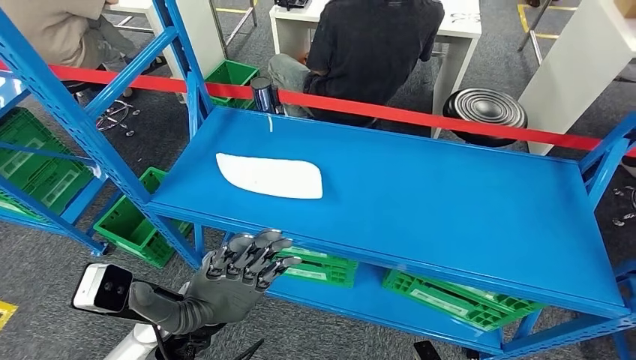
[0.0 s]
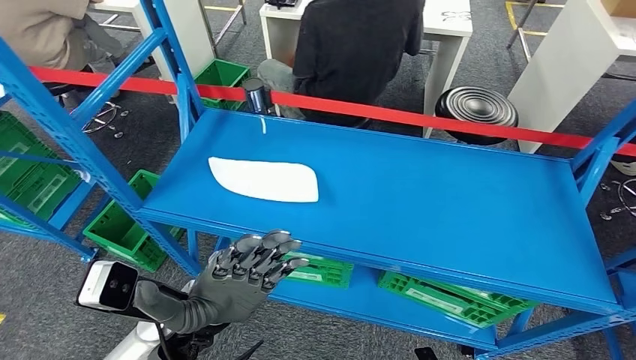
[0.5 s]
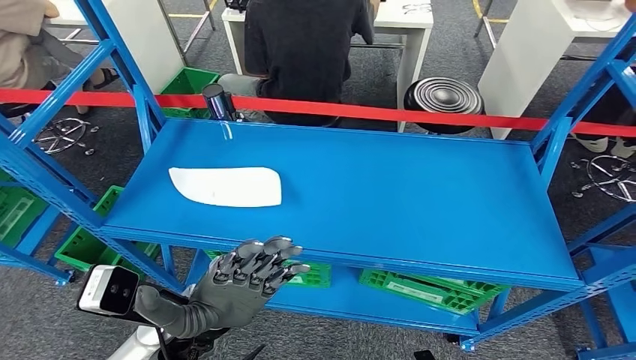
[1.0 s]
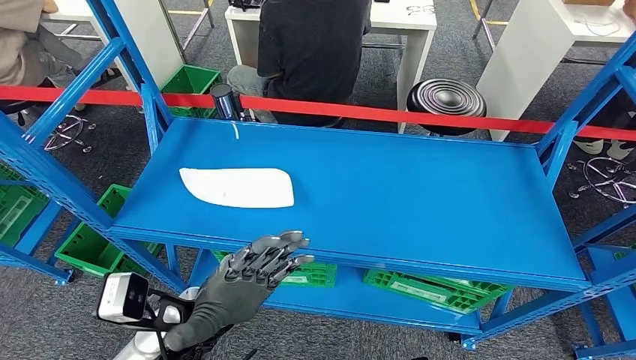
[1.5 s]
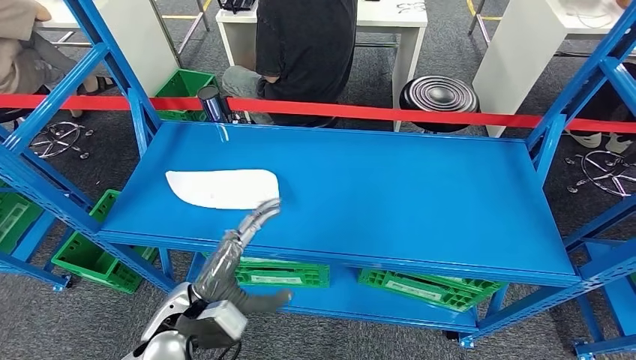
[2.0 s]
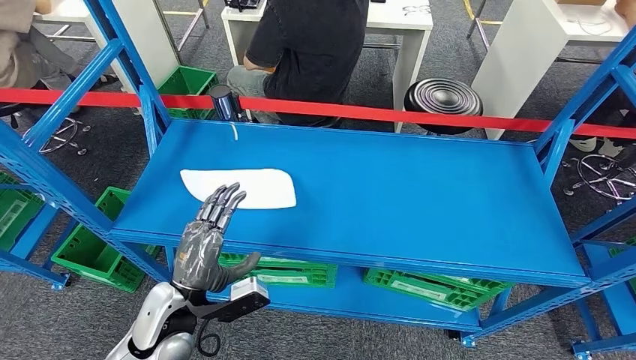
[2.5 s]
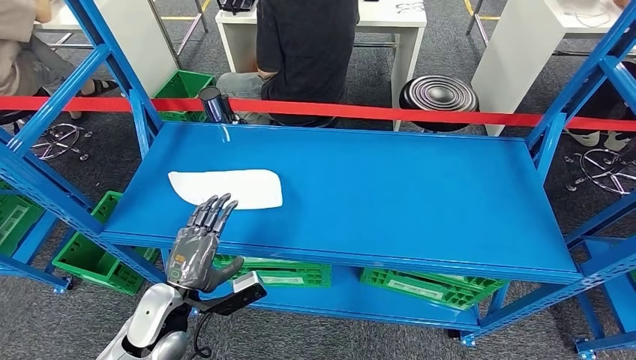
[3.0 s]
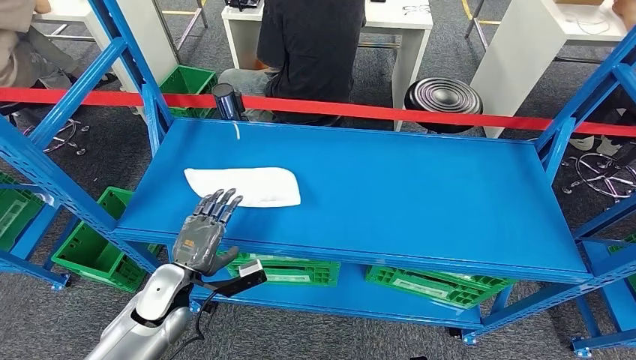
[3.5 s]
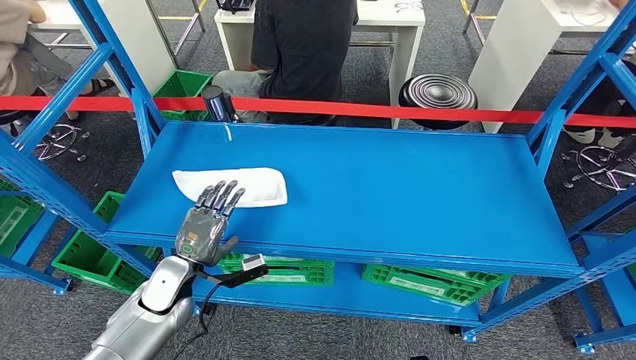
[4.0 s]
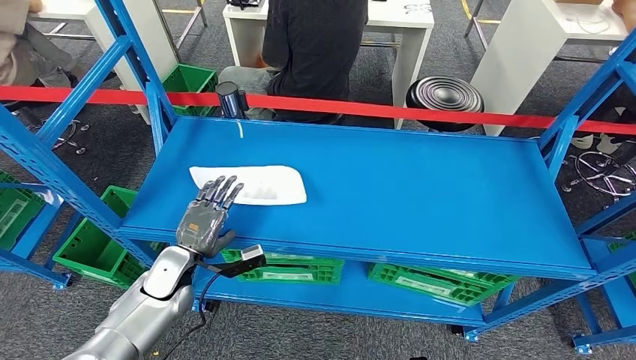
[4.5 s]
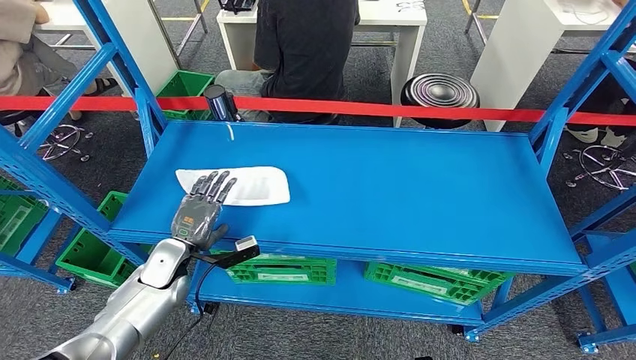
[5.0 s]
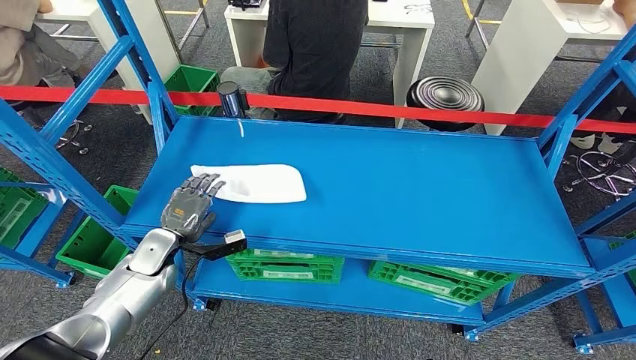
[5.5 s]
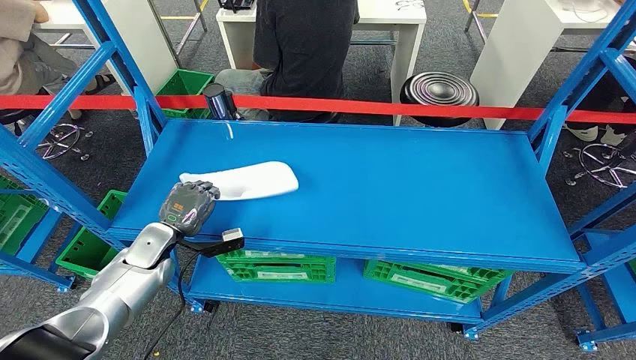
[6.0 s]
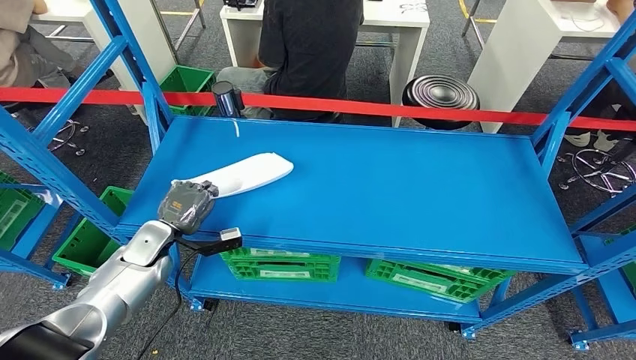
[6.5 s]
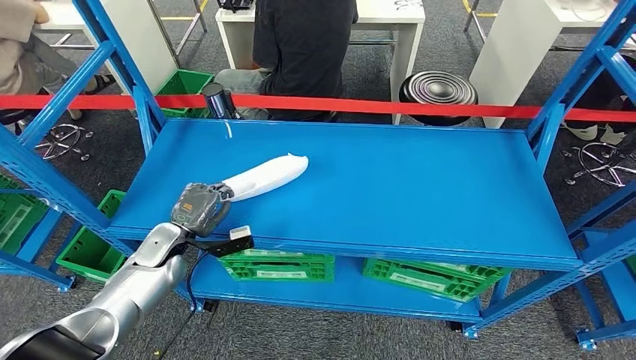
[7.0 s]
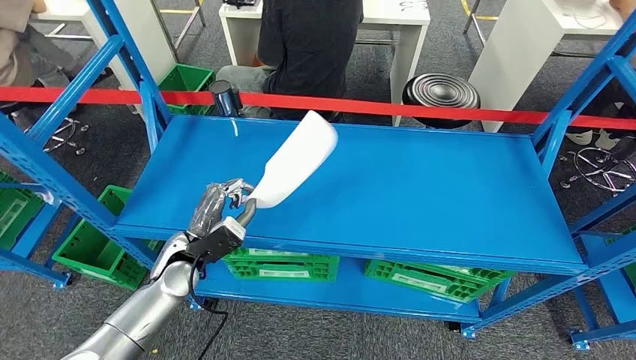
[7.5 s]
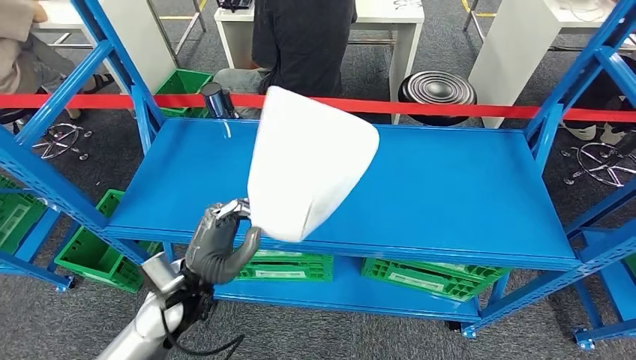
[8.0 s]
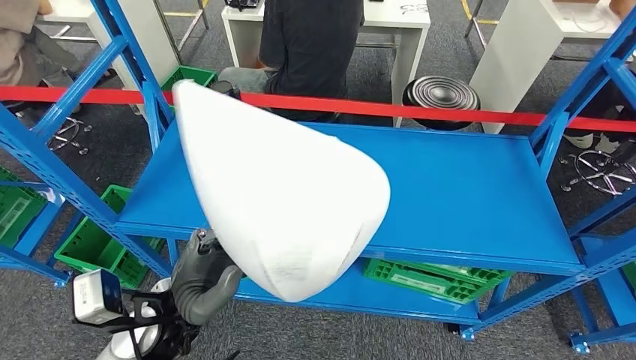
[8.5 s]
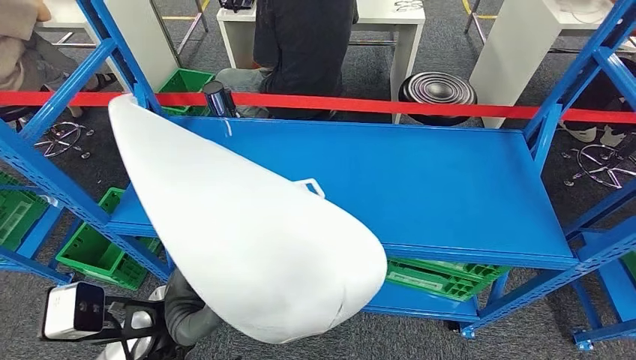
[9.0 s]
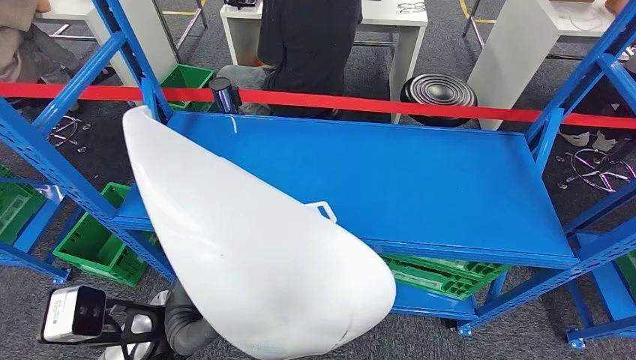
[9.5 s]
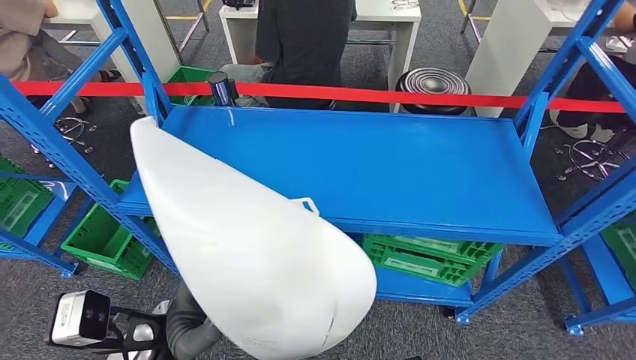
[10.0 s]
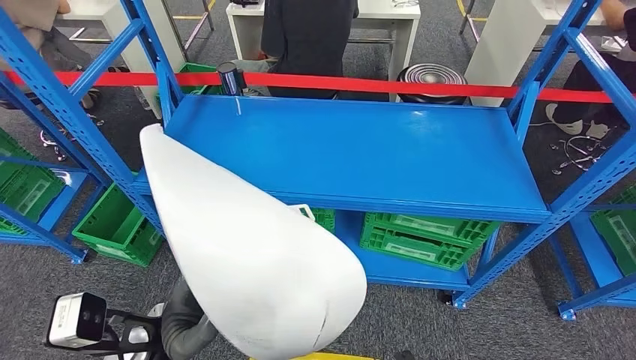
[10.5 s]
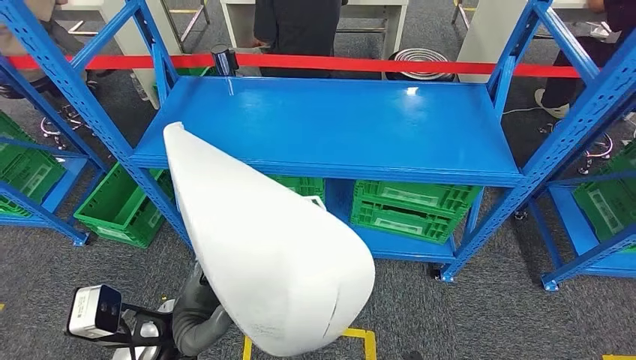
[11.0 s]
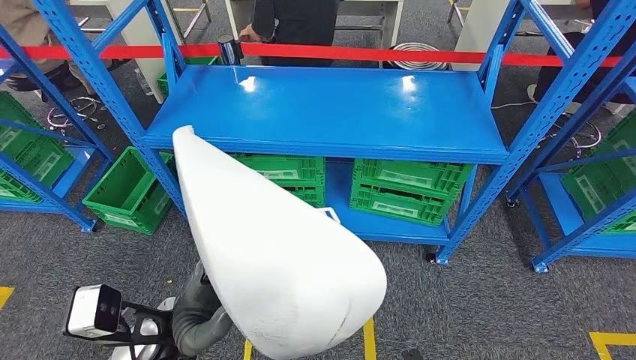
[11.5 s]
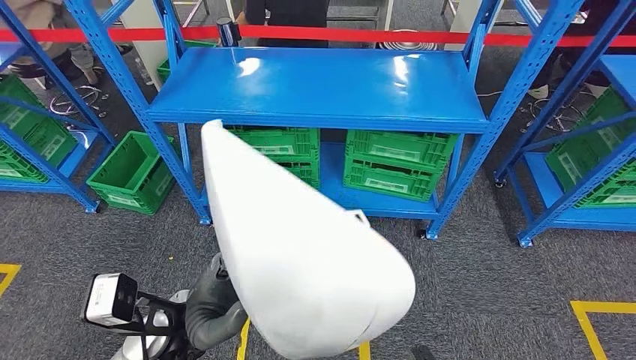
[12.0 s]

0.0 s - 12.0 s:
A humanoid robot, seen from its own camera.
Step, 0.0 s - 8.5 s: Pick up the small component from the shelf.

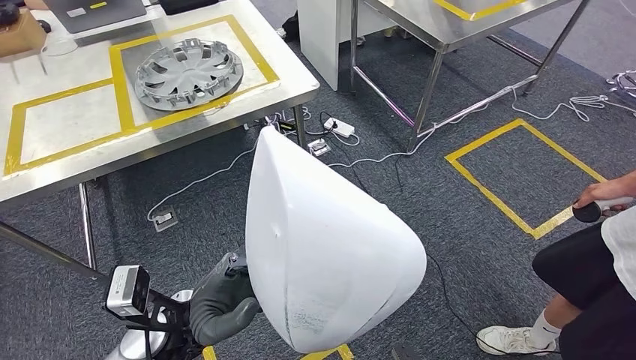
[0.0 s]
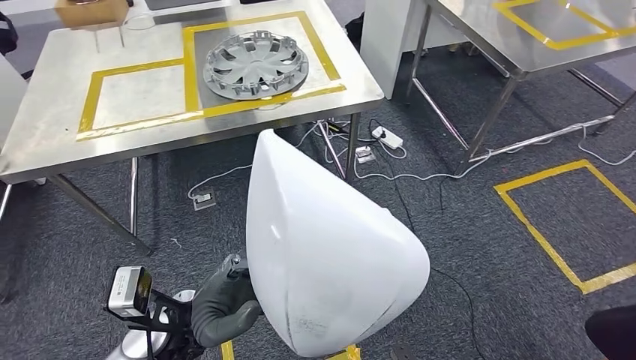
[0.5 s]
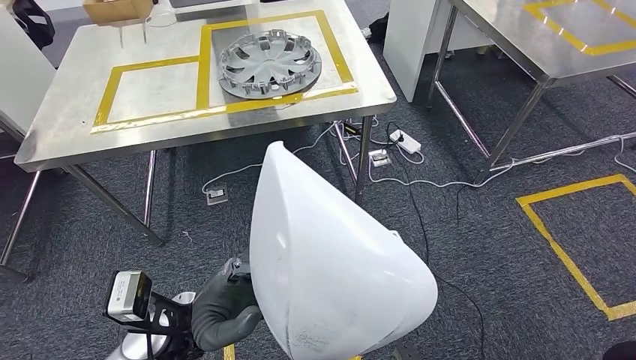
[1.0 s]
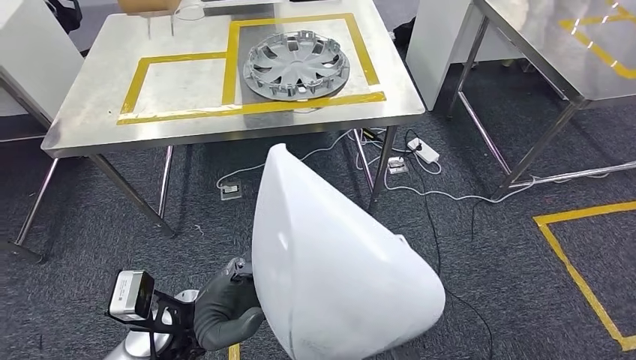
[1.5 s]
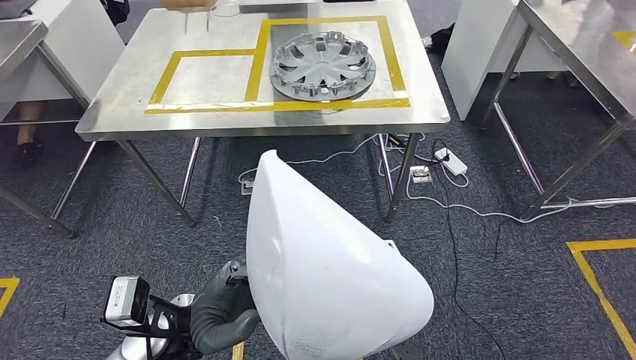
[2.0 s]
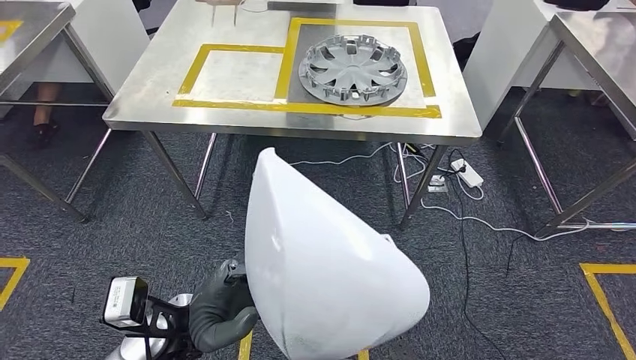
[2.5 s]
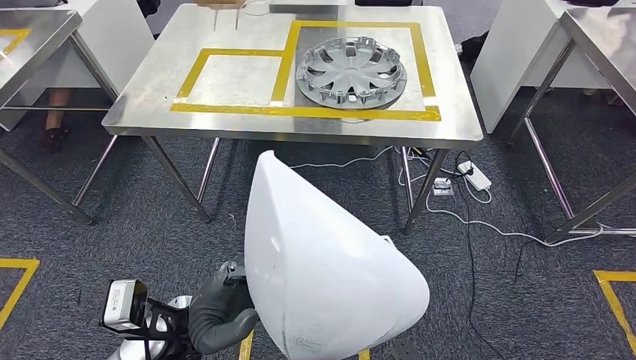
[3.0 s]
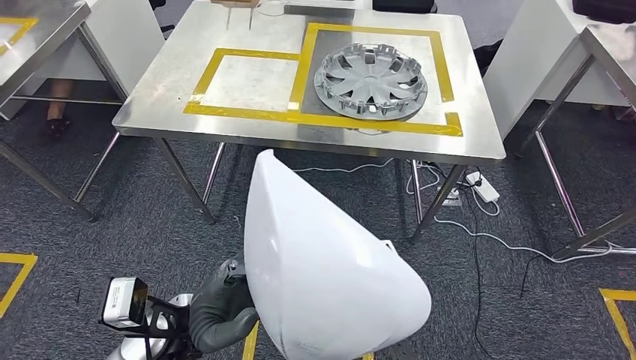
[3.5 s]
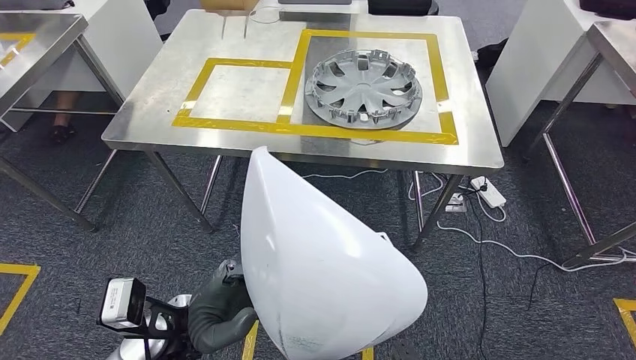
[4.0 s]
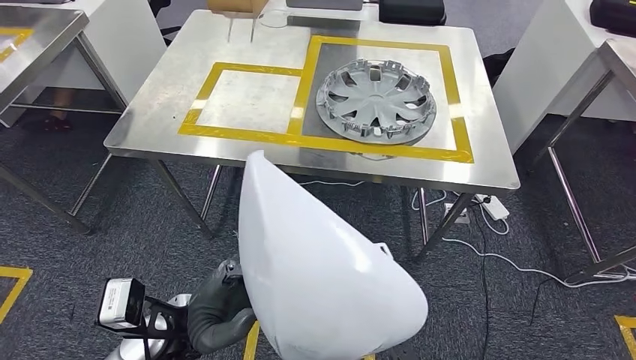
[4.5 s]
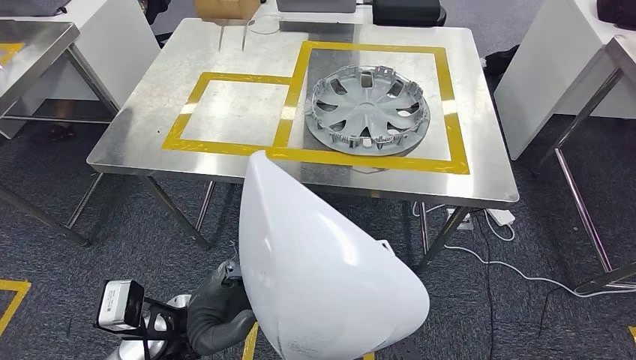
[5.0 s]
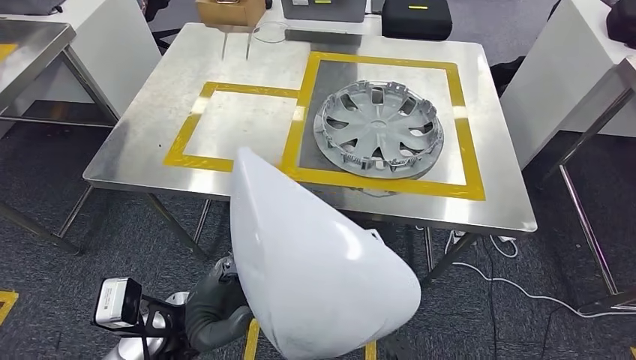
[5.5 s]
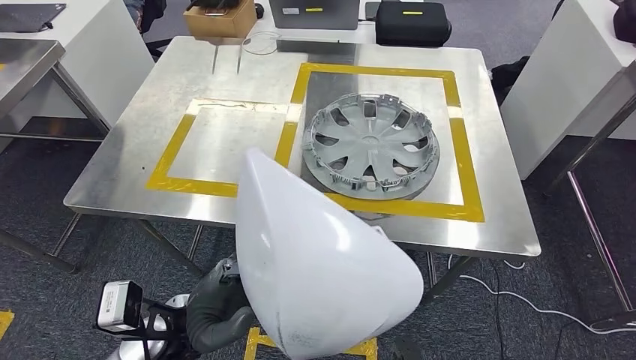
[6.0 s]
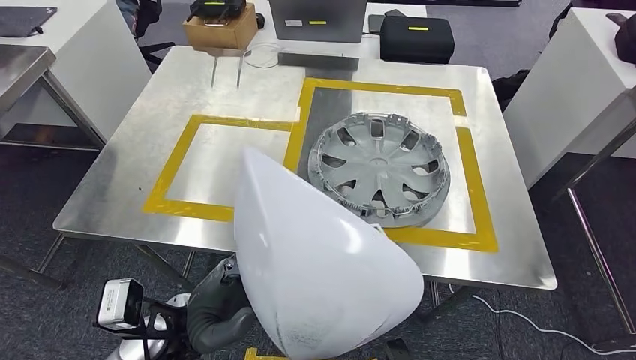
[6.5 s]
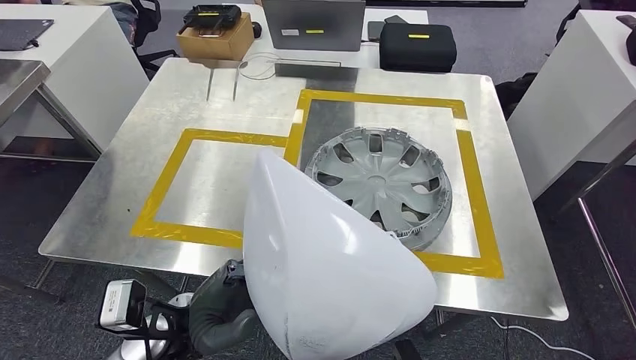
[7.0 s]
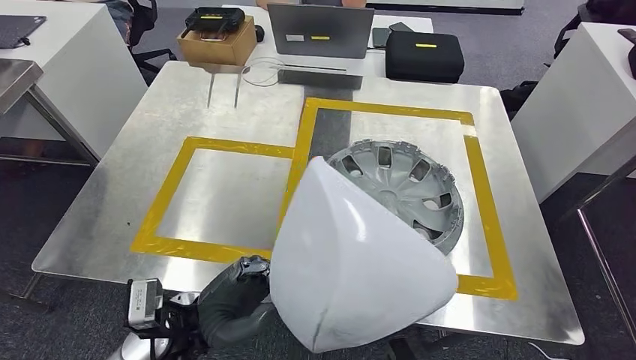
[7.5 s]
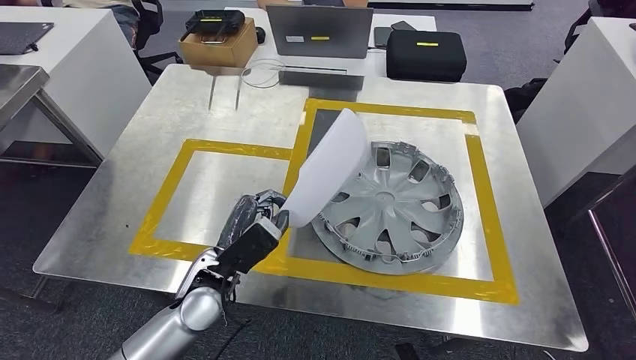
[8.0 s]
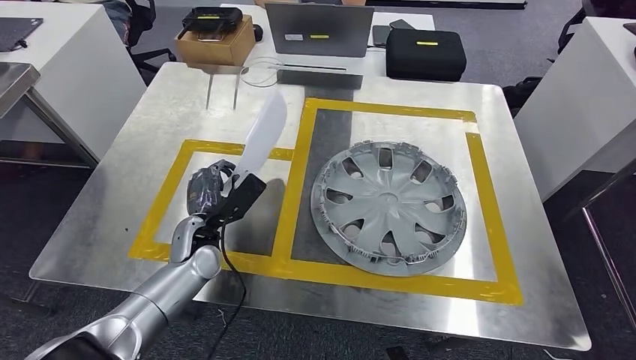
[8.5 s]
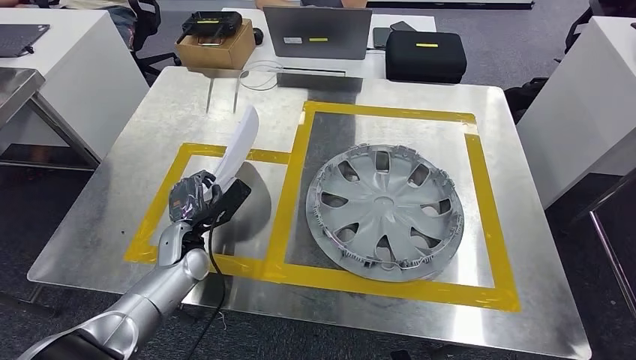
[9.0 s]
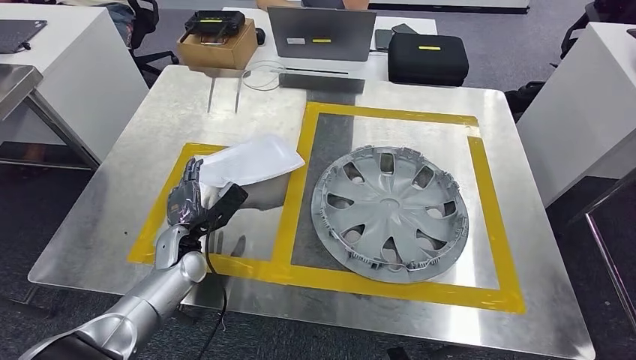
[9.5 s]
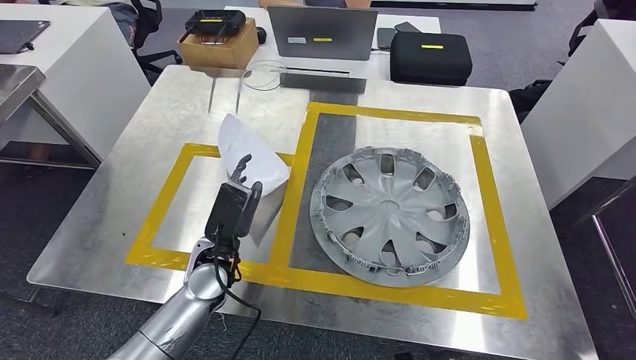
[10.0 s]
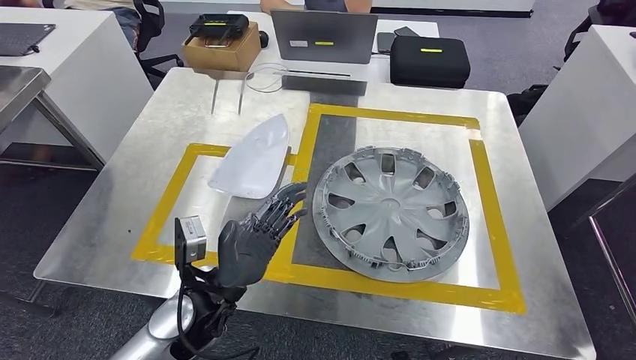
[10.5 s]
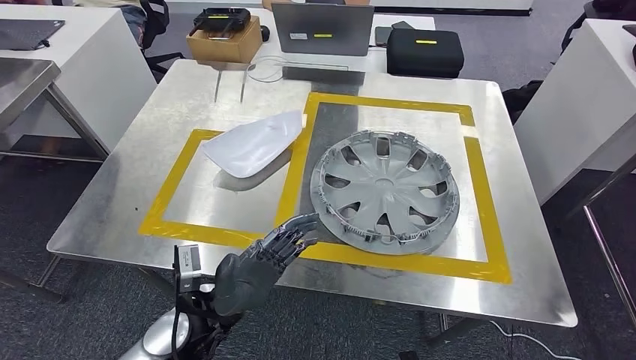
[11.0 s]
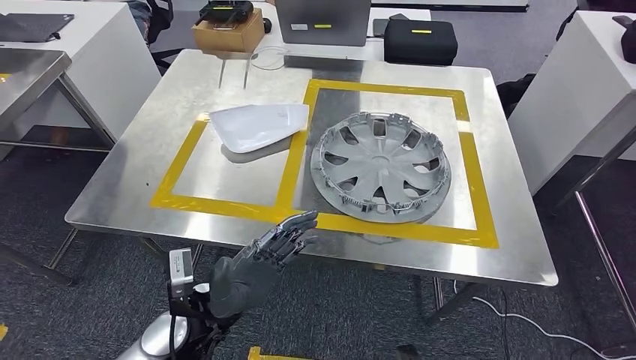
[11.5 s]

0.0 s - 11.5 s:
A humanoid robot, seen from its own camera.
Step, 0.0 s - 7.0 s: Bring the small component to the front of the workbench.
